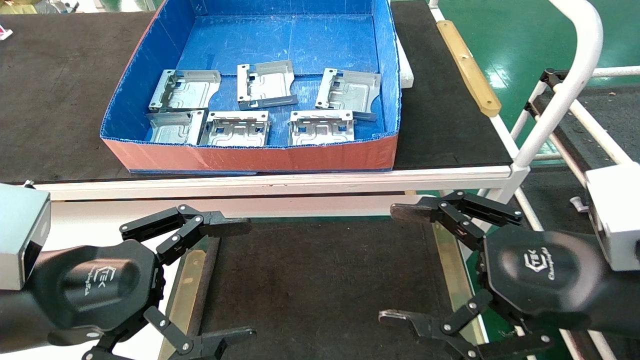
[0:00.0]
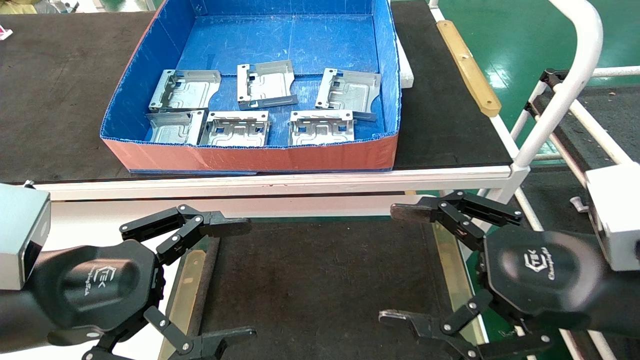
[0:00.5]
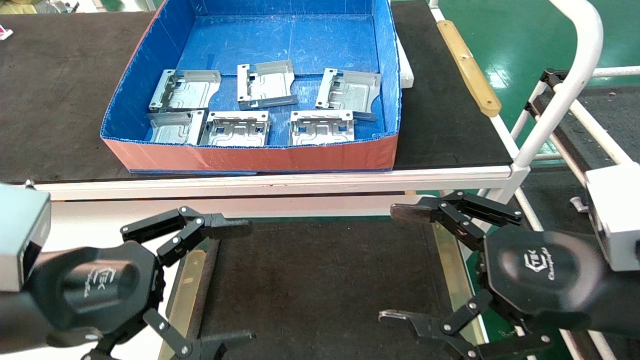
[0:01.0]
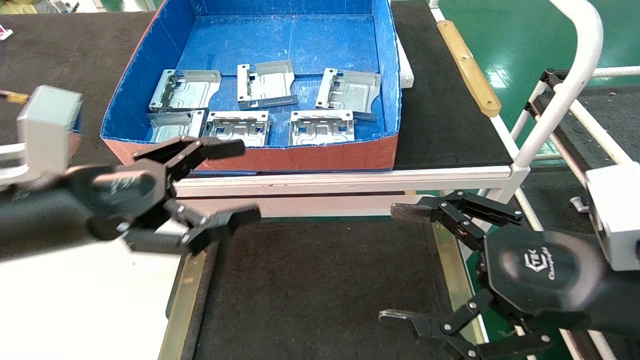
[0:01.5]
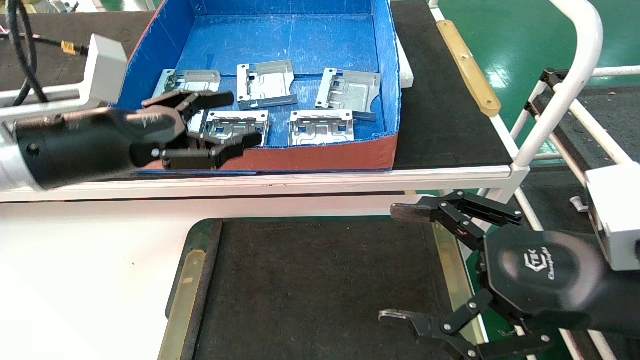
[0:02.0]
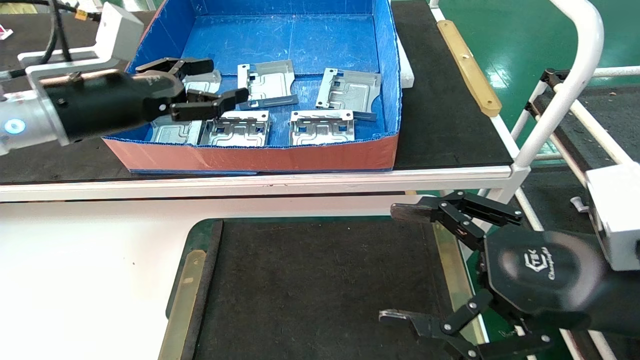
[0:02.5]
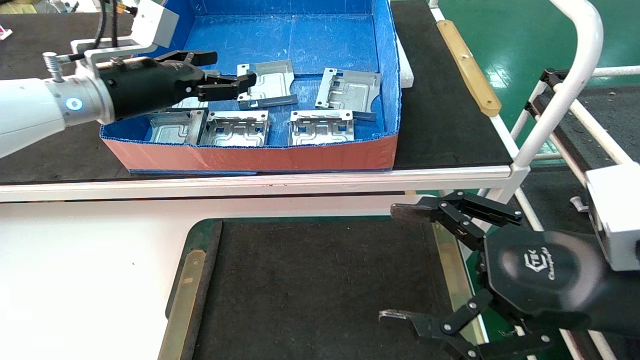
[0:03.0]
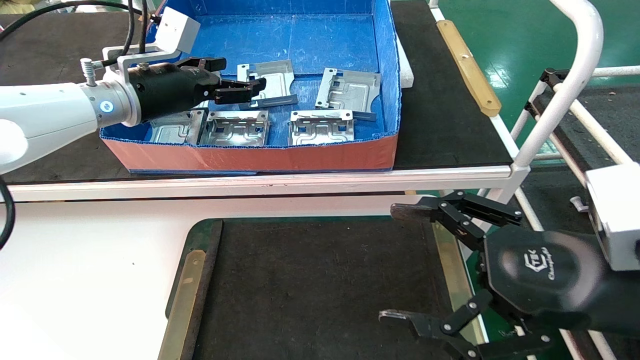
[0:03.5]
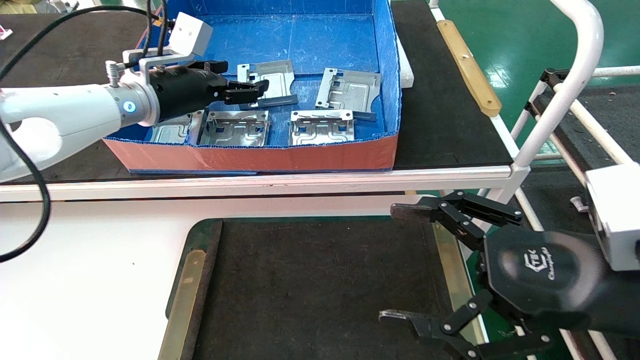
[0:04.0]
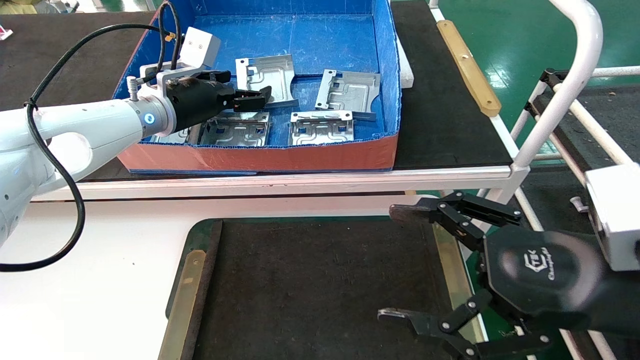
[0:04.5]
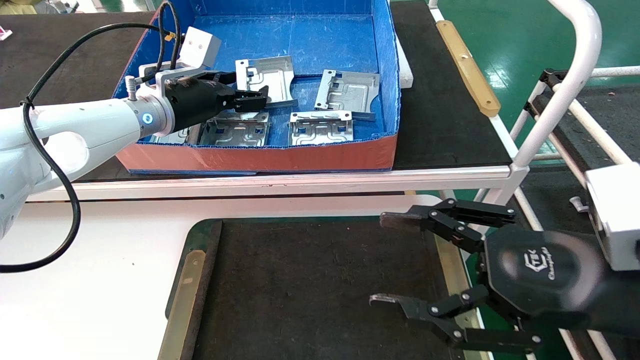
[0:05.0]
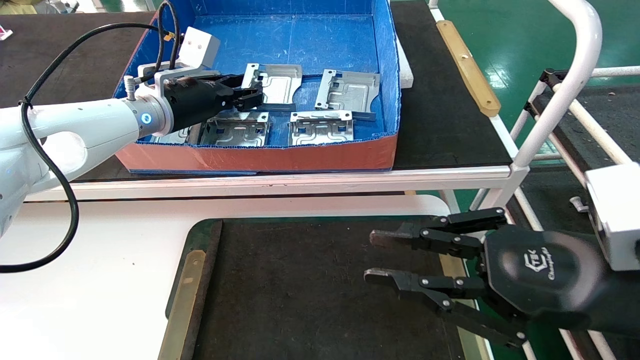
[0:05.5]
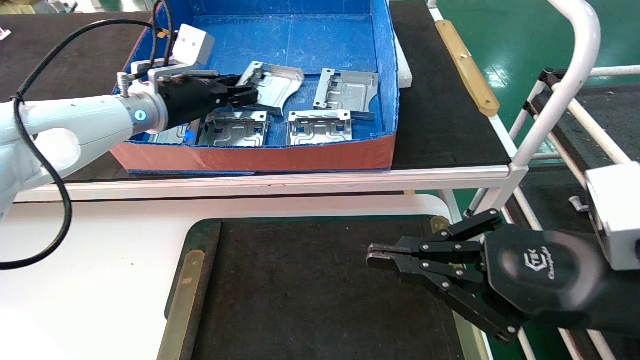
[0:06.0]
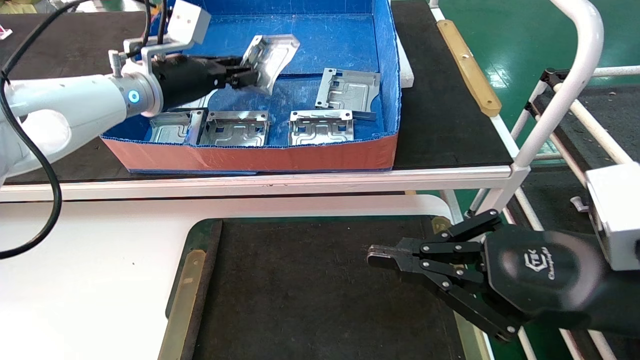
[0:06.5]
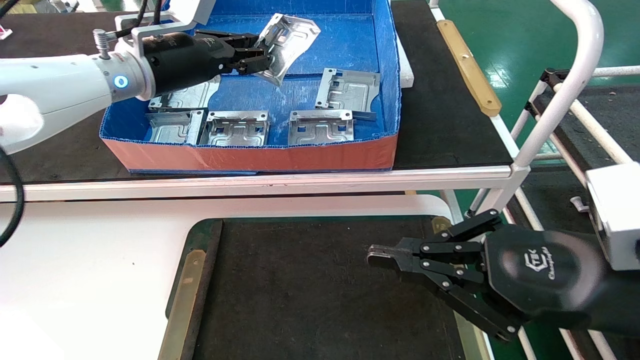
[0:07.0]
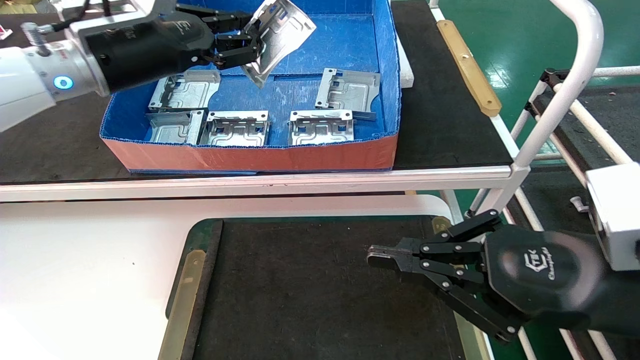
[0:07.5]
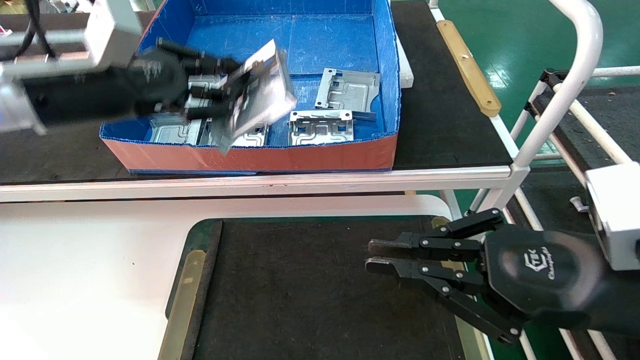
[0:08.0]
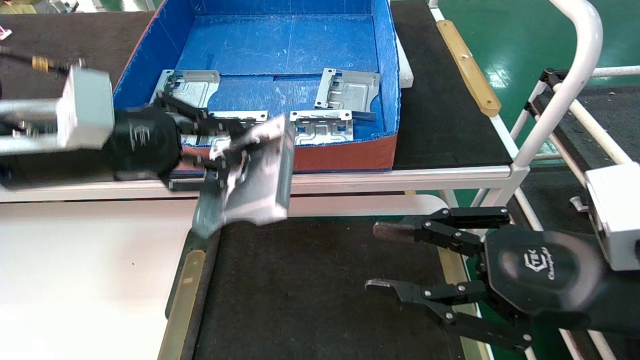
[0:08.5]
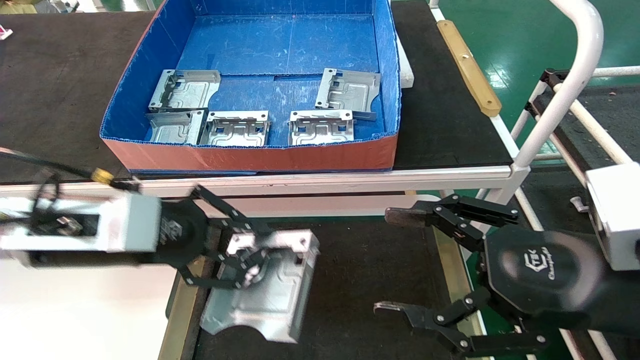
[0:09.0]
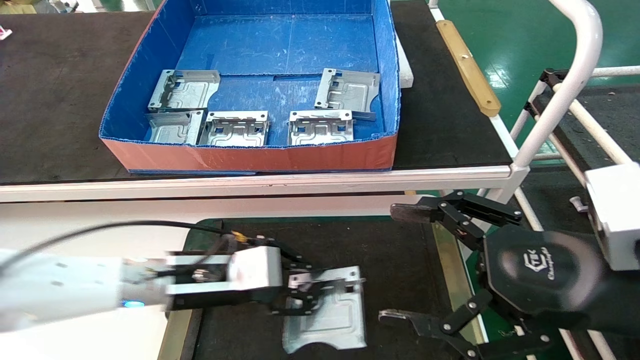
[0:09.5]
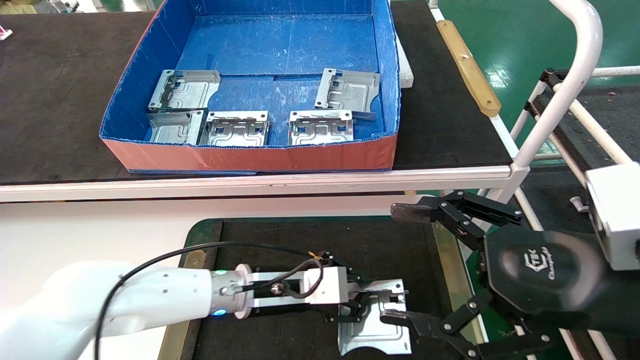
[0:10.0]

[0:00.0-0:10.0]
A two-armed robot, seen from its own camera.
Task of the whole recording: take the accessories out of the box and place them on the table.
Step, 0:01.0 to 0:05.5: Pick up the hard drive bracket from the feeding area.
0:00.0 to 0:02.0: The left gripper travels forward and upward by about 15 cm.
0:02.0 to 0:04.0: The left gripper travels forward by approximately 15 cm.
0:04.0 to 0:06.0: The left gripper closes its fingers, while the right gripper closes.
0:06.0 to 0:08.0: The left gripper moves backward, roughly 15 cm.
0:08.0 to 0:10.0: The left gripper shifts about 30 cm downward and to the right. Meanwhile the right gripper opens.

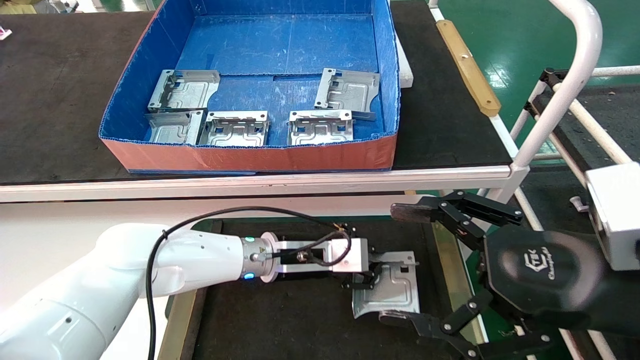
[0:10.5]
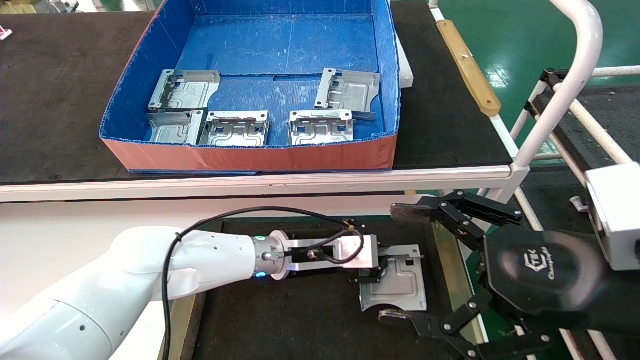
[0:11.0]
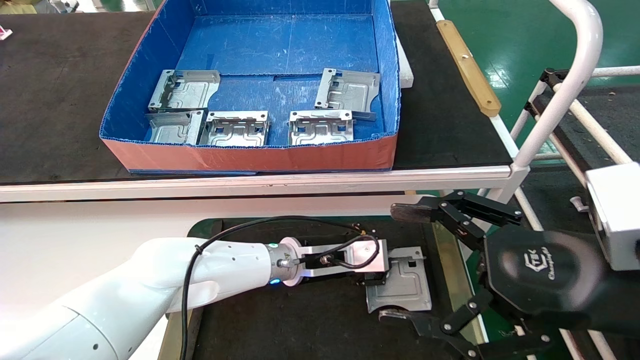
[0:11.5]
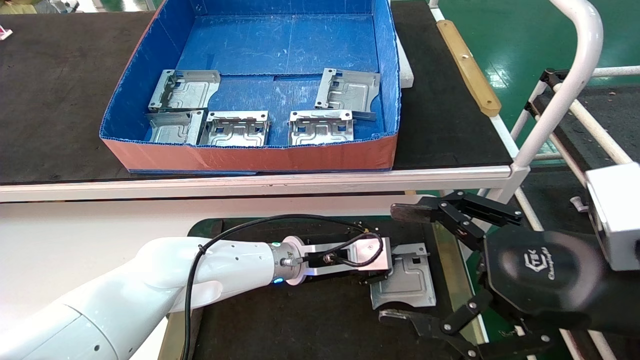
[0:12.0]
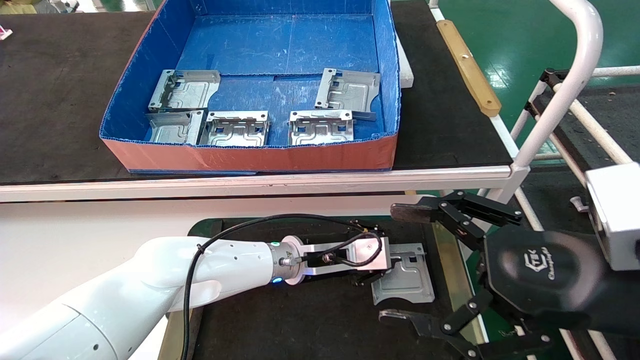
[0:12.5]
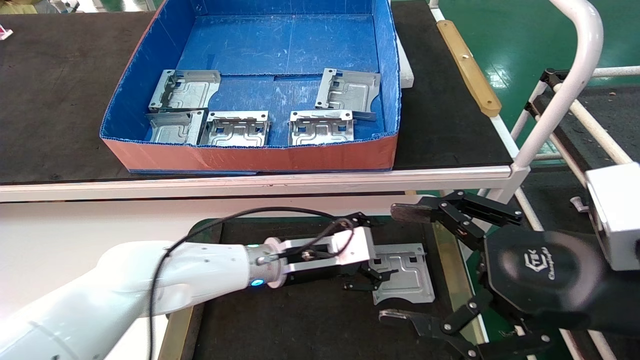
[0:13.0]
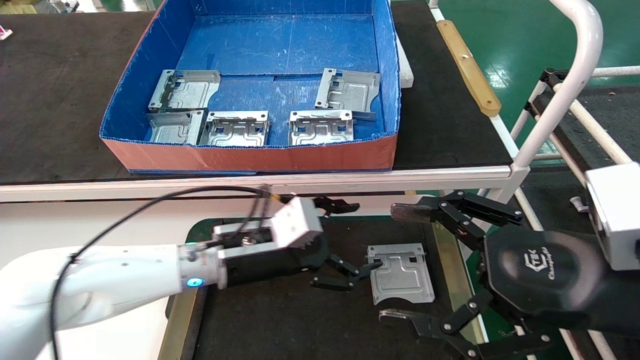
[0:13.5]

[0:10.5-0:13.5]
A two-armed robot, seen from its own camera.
Task of the whole recording: take the accessories out of the box and place them on the table.
0:10.5 to 0:12.0: The grippers make only small movements.
0:12.0 to 0:13.5: The left gripper is displaced to the left and backward by about 10 cm, and opens its fingers.
